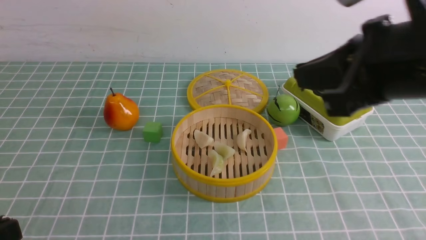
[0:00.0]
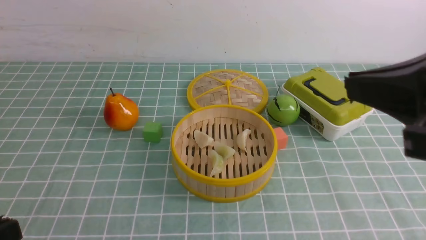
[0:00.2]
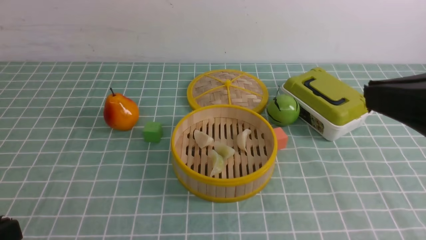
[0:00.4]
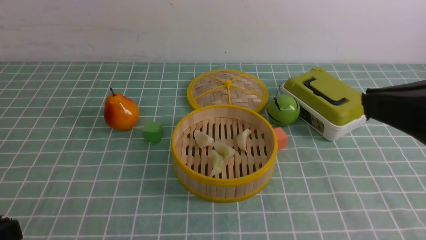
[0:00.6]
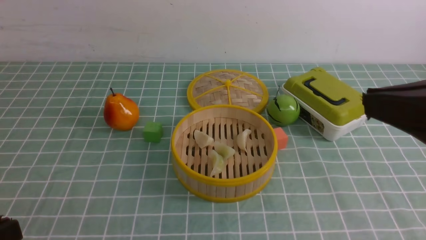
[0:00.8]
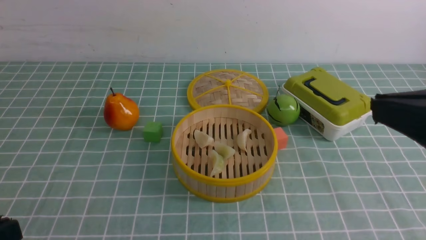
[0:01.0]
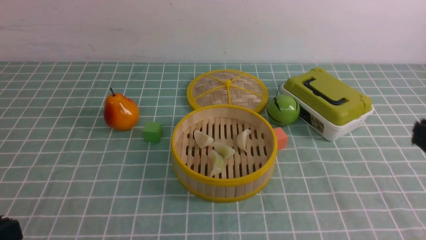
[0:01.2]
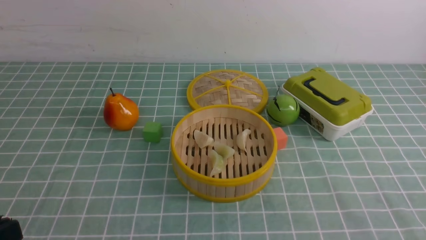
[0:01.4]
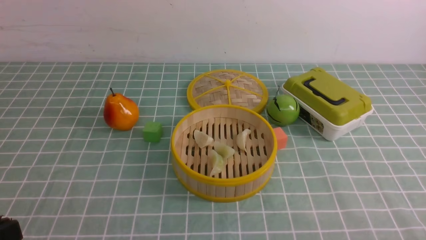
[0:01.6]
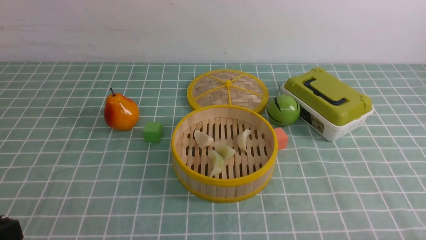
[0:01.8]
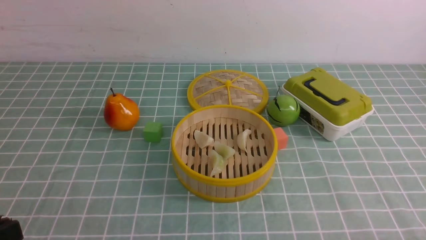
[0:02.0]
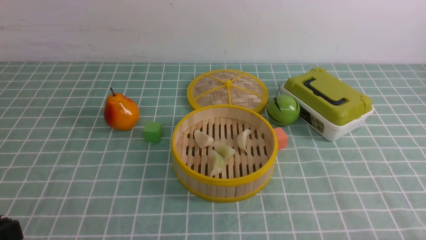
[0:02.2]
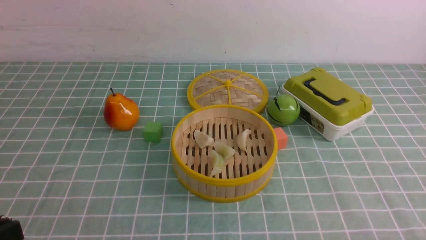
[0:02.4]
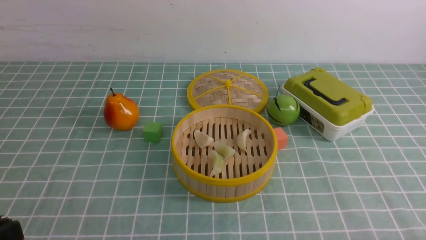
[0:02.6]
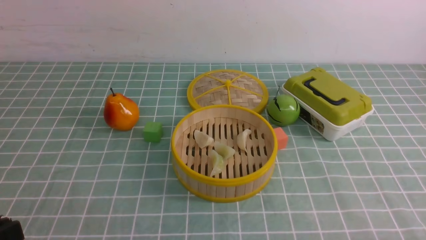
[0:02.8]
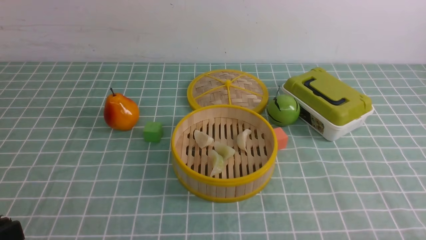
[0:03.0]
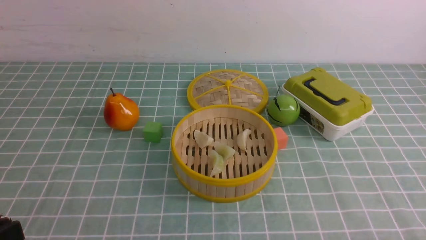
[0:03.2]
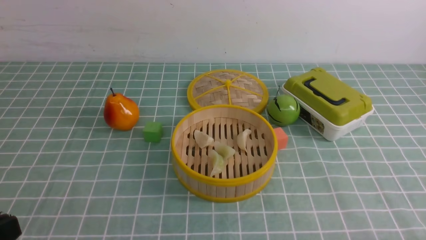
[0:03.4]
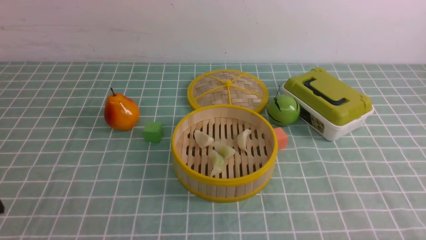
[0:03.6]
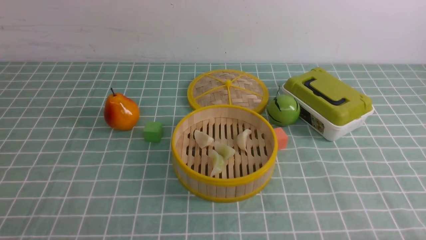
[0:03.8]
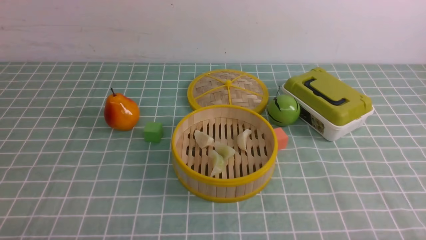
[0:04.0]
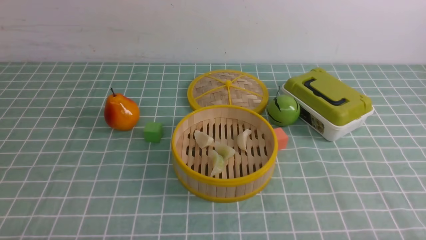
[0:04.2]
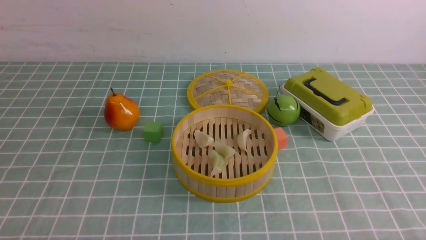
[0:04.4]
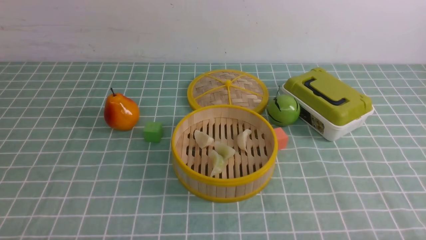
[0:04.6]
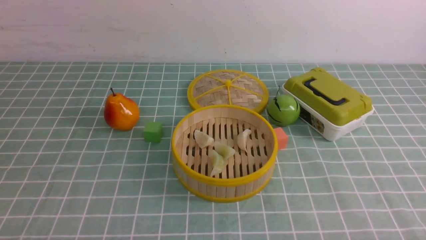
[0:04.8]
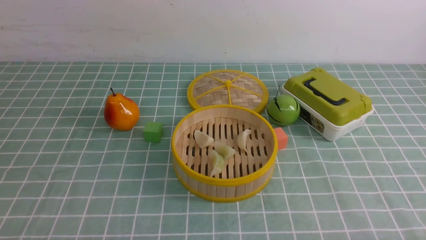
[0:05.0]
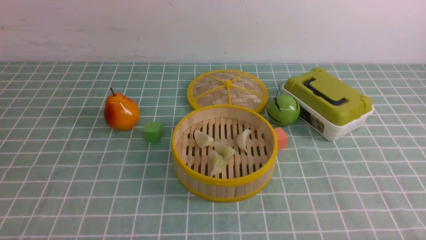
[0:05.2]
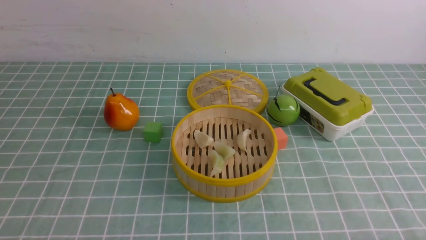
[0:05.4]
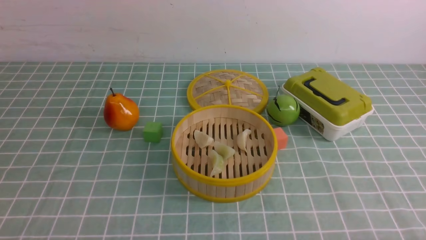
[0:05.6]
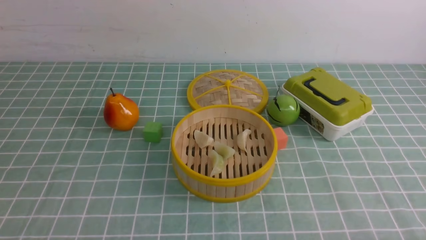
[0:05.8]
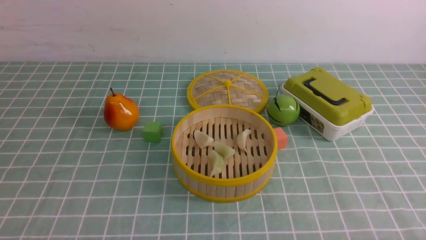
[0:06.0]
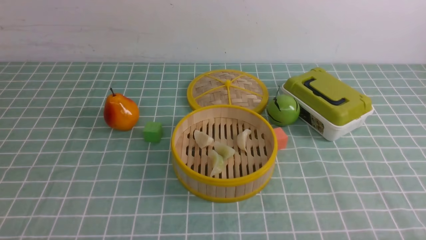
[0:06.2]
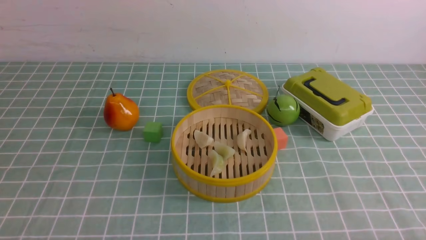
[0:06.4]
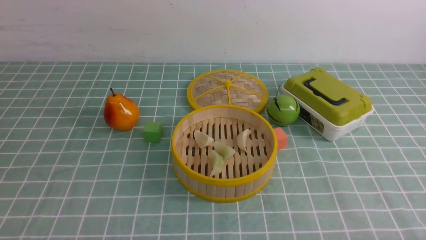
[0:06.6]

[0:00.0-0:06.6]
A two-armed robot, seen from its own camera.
Task of the whole recording: put the dumplings into the steamer on the table with the blue tablecloth.
0:00.0 to 0:01.6: The right gripper heads downward, backward and to the right, covering roughly 30 cm.

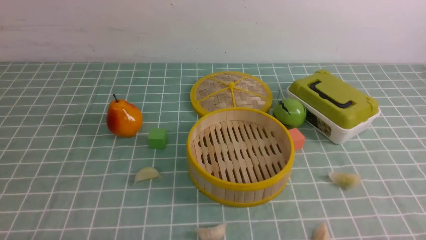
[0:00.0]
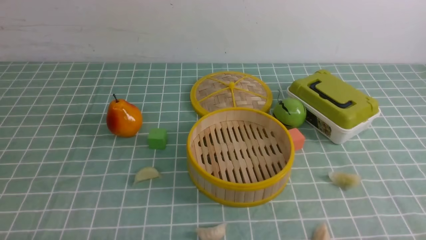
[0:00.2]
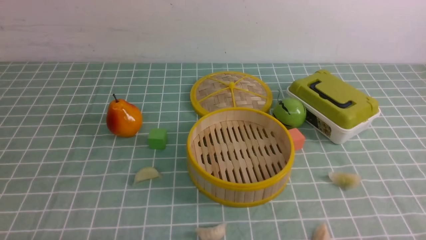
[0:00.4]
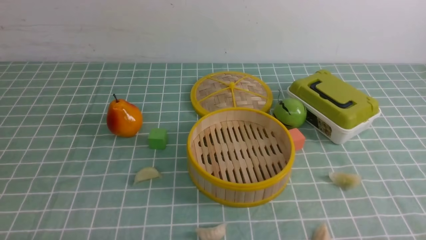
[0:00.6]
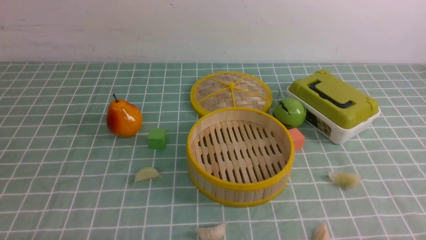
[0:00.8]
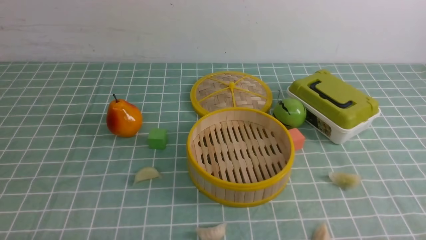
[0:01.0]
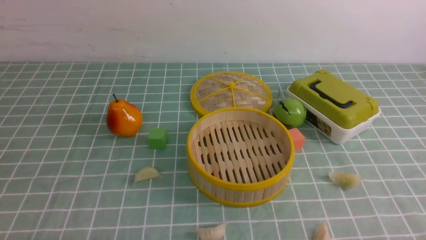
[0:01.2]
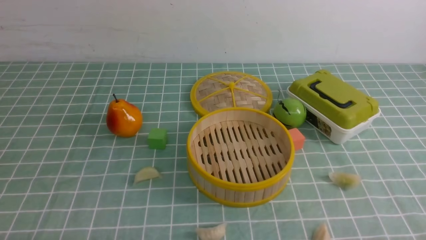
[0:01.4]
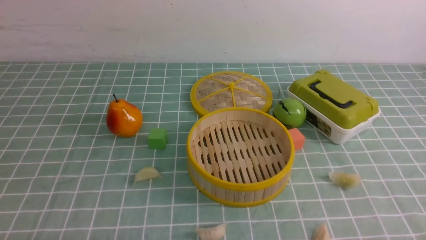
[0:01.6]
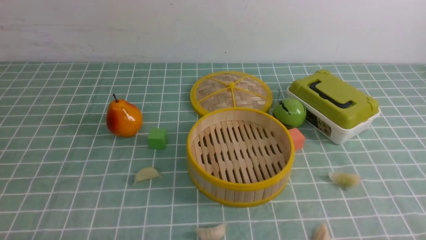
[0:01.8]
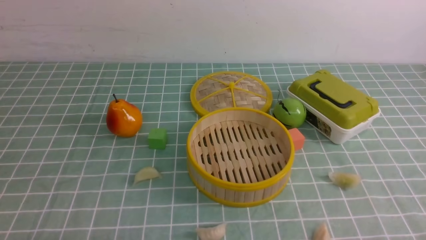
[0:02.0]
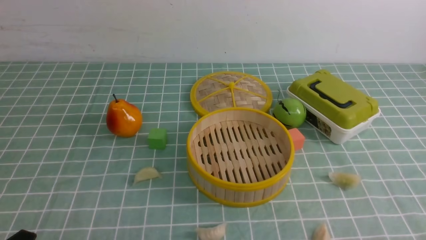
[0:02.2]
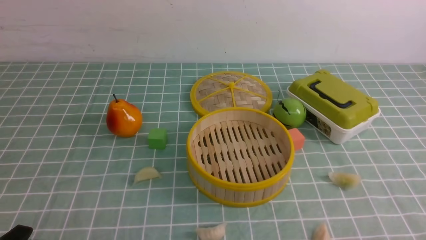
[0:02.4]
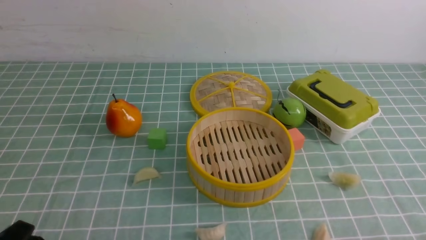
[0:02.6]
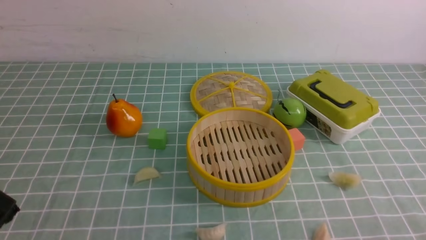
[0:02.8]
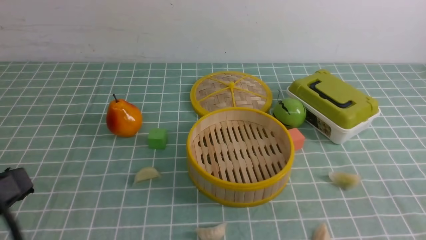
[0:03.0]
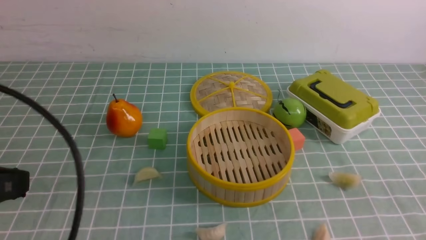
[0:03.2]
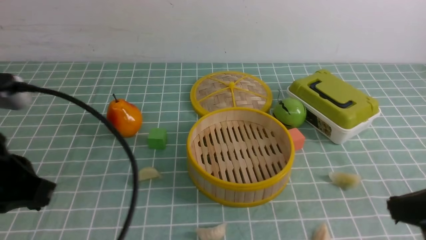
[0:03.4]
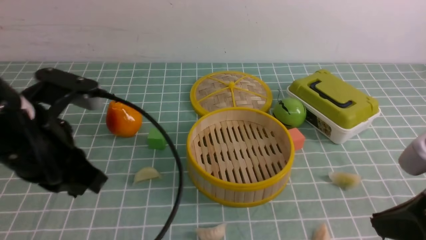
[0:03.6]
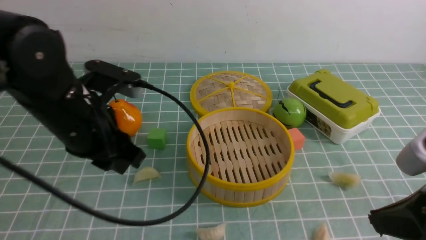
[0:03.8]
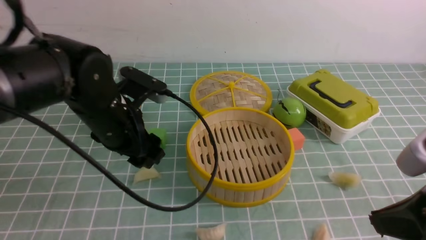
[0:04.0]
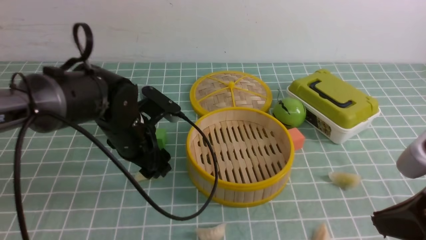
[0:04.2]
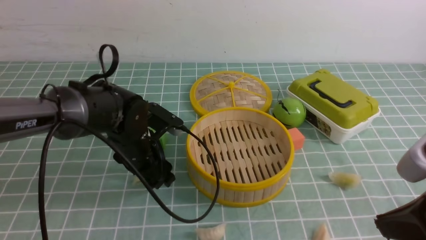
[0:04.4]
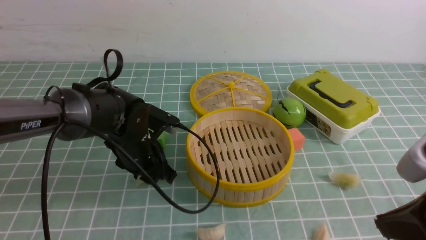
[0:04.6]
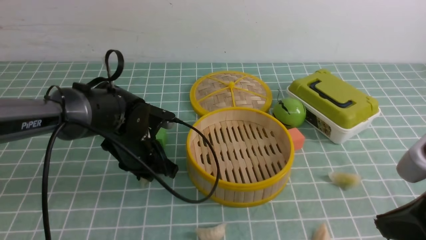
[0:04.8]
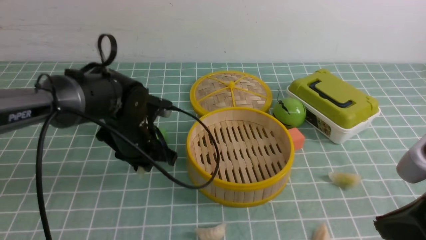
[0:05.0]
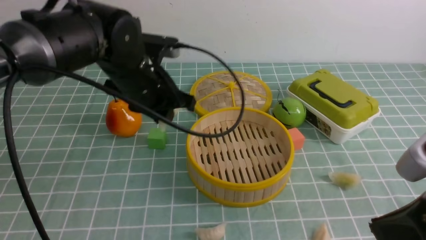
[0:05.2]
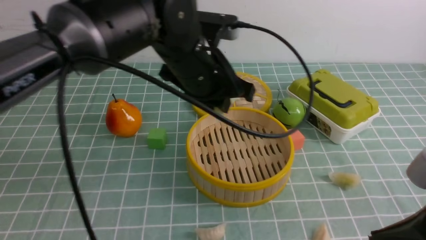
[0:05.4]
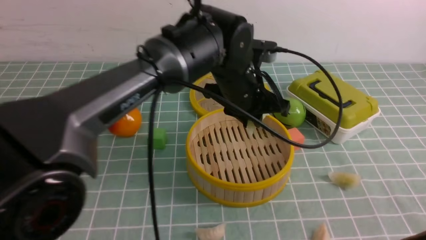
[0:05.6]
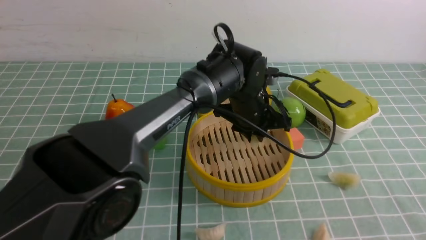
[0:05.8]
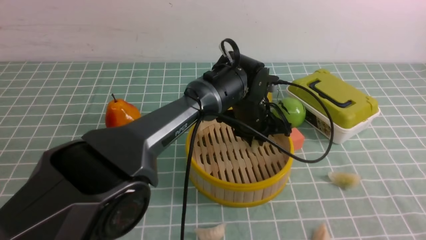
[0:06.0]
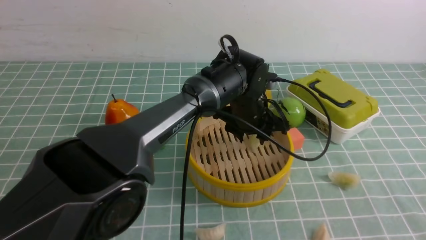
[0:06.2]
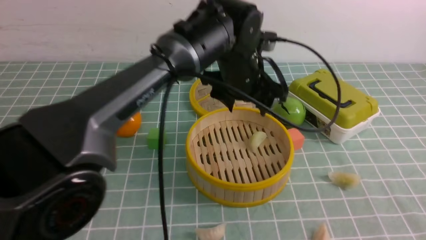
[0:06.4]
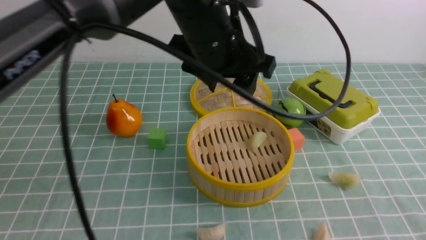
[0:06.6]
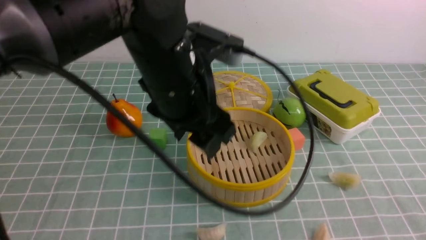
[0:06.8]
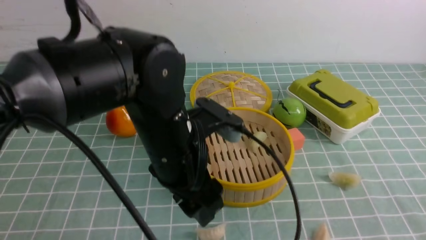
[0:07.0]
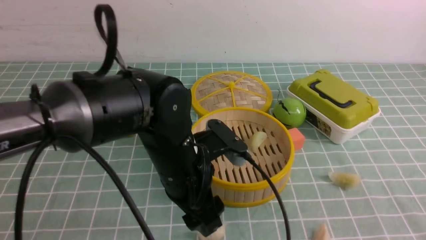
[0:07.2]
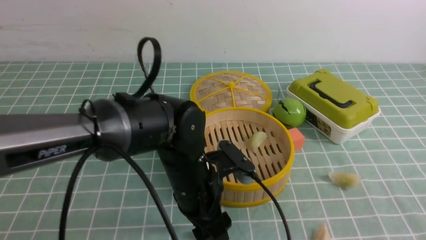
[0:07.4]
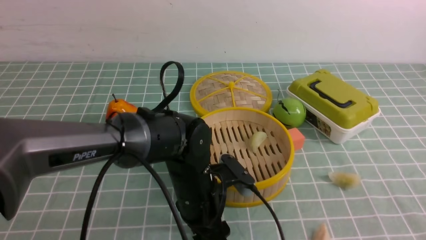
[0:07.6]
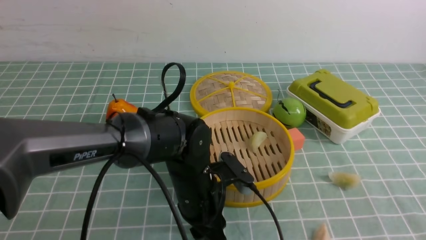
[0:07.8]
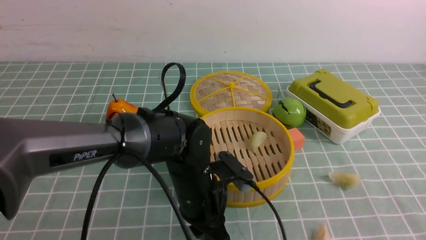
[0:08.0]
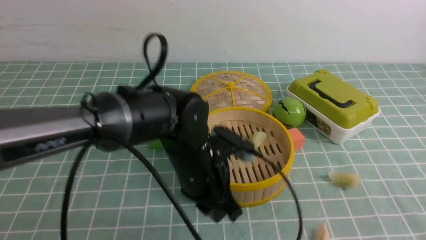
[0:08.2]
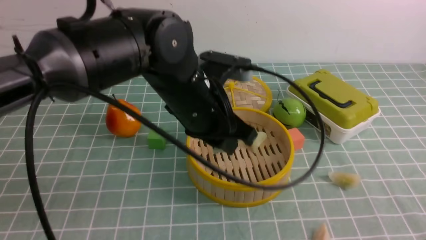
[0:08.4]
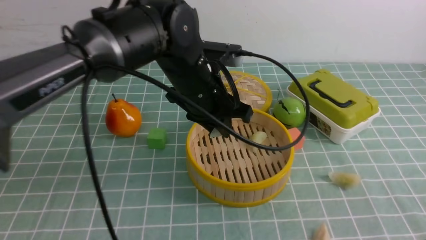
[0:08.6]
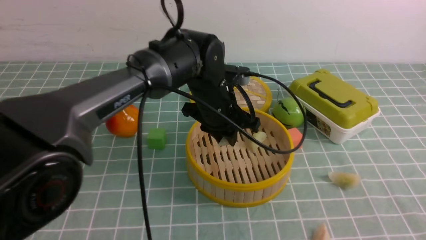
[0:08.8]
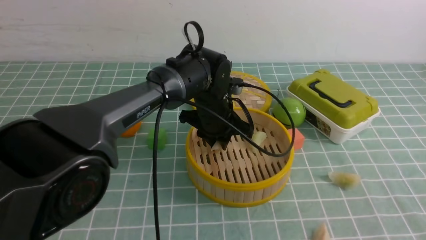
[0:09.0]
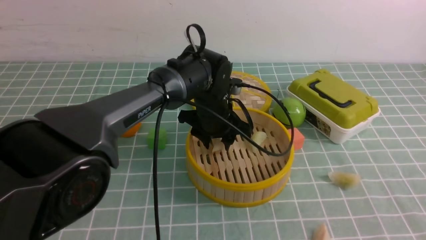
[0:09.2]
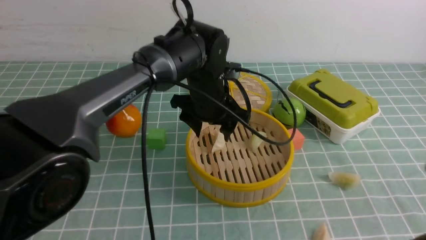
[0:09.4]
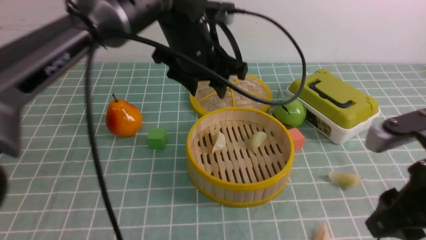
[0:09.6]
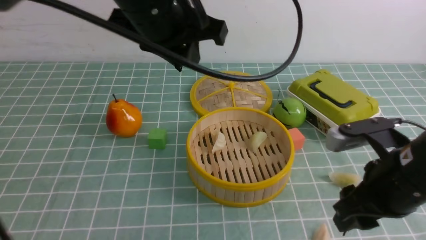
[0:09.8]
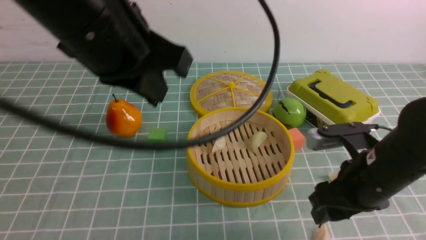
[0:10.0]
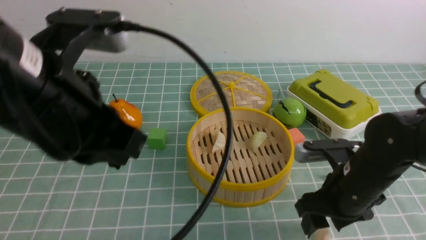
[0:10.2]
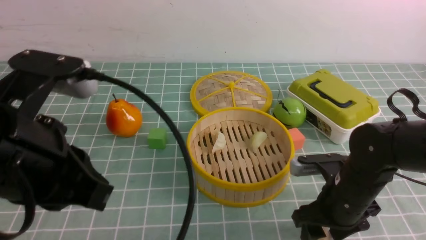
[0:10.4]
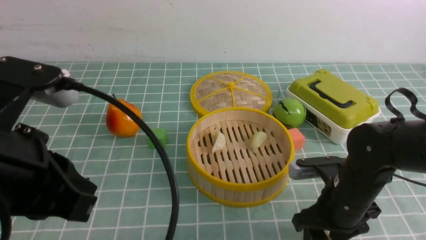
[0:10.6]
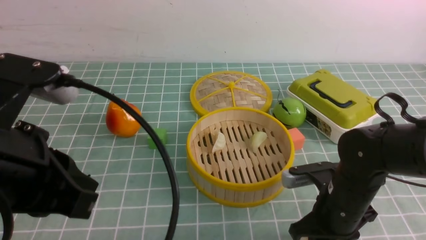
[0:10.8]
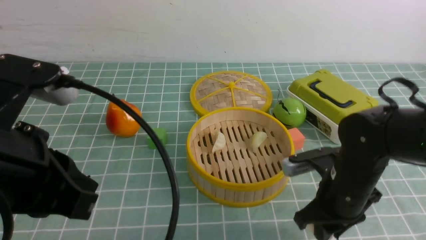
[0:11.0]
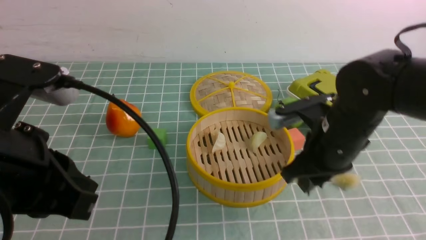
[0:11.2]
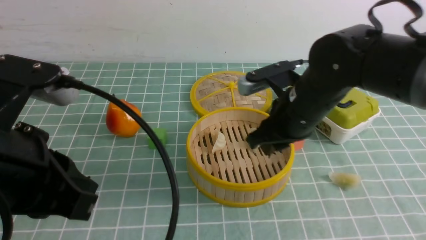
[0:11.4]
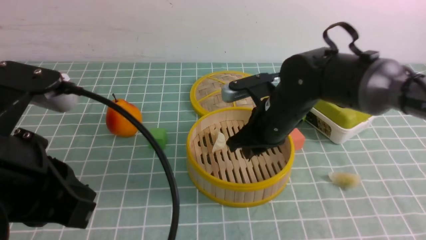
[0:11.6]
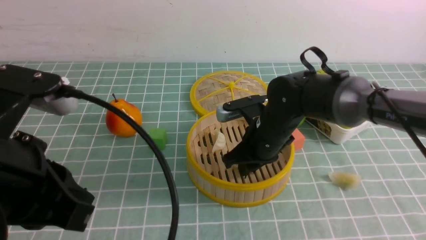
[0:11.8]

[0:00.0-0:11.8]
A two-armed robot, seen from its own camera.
Task of the whole recording: put the dumplings into the steamer on the table with the blue tablecloth.
Step, 0:00.0 to 0:04.4: use the left arm to grab a dumpling.
Step, 0:04.8 to 0:06.2: use the left arm to put the dumpling into the steamer.
Step, 0:06.4 to 0:08.0: use the left arm to grab a dumpling.
Step, 0:08.2 to 0:09.2: use the left arm to put the dumpling into the steamer.
Step, 0:09.4 to 0:10.8: use the right arm to grab a dumpling.
0:00.0 to 0:01.4: The two grippers keep their place.
0:01.4 to 0:03.0: The left gripper shifts about 15 cm upward, and closes up.
0:03.0 to 0:04.4: The left gripper moves forward and downward, approximately 30 cm, and opens its fingers. The right gripper goes approximately 10 cm forward and to the left.
0:04.4 to 0:06.0: The right gripper moves backward, roughly 5 cm. Meanwhile the left gripper is displaced to the right by about 20 cm, and closes up.
0:06.0 to 0:07.4: The left gripper travels backward and to the left by about 15 cm, moves some 15 cm upward and comes back, and opens up.
0:07.4 to 0:08.8: The left gripper goes roughly 15 cm forward, and closes.
0:08.8 to 0:10.4: The left gripper shifts roughly 30 cm backward, to the left and upward, and closes. The right gripper travels forward and downward by roughly 25 cm, and opens its fingers.
0:10.4 to 0:11.8: The right gripper goes roughly 15 cm to the left and forward, and closes.
